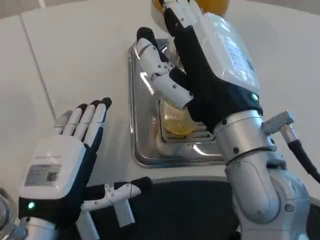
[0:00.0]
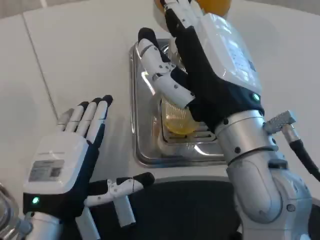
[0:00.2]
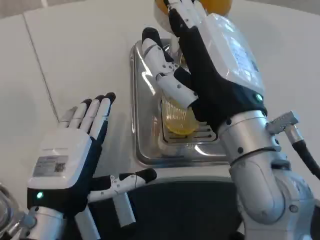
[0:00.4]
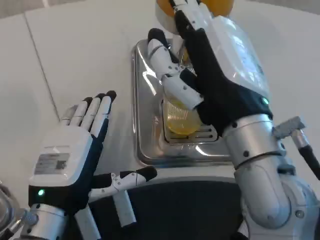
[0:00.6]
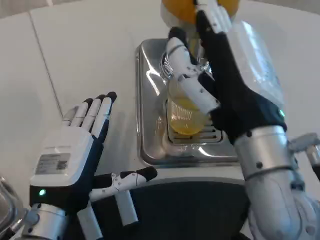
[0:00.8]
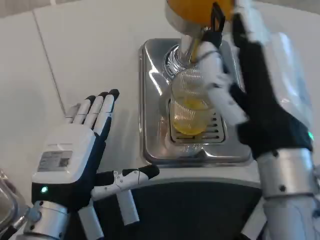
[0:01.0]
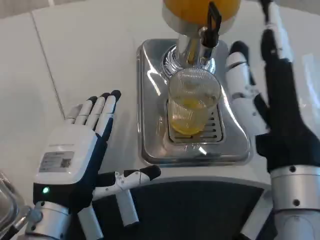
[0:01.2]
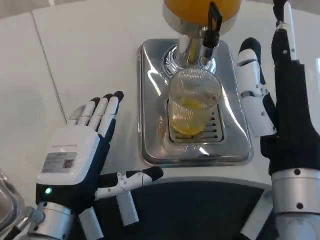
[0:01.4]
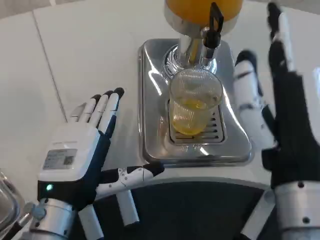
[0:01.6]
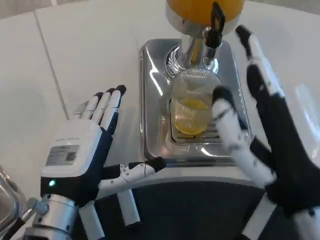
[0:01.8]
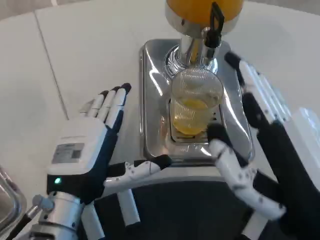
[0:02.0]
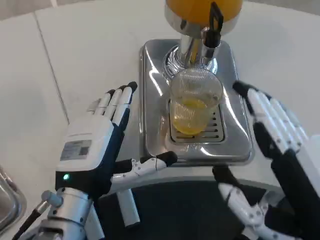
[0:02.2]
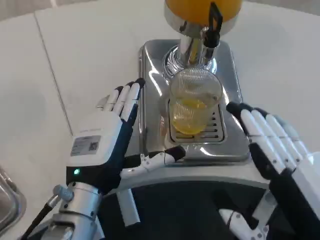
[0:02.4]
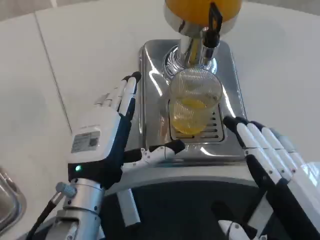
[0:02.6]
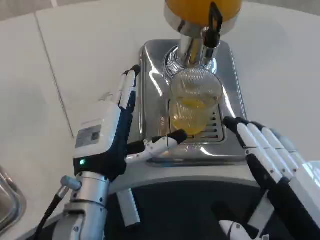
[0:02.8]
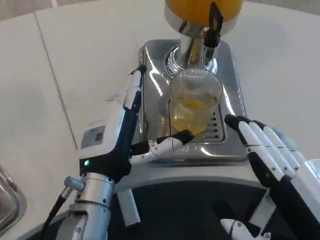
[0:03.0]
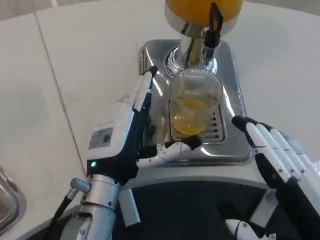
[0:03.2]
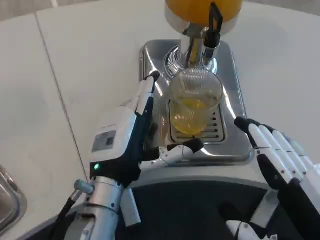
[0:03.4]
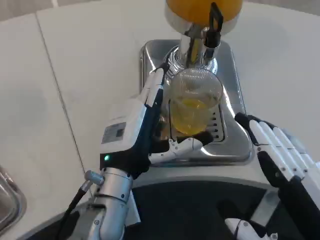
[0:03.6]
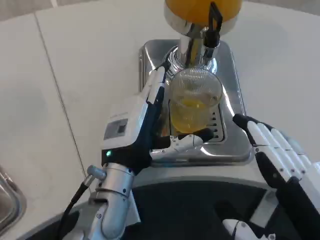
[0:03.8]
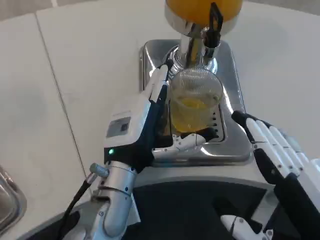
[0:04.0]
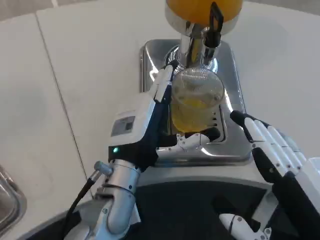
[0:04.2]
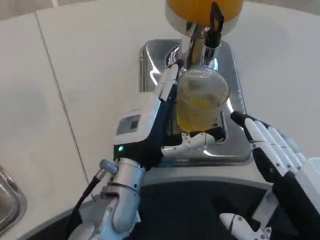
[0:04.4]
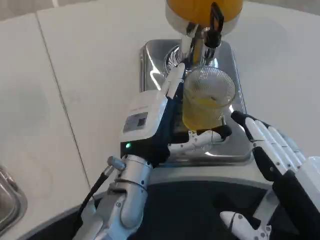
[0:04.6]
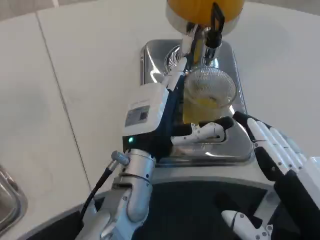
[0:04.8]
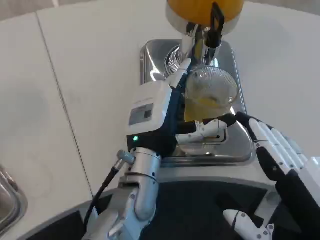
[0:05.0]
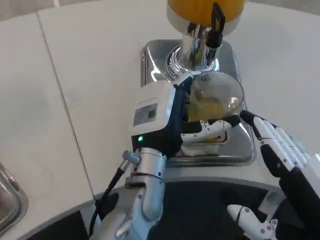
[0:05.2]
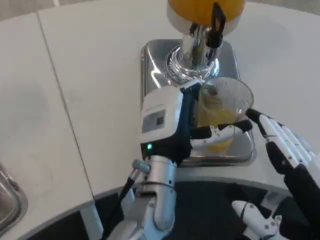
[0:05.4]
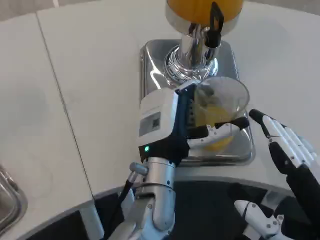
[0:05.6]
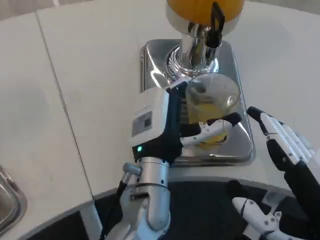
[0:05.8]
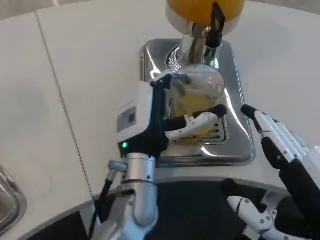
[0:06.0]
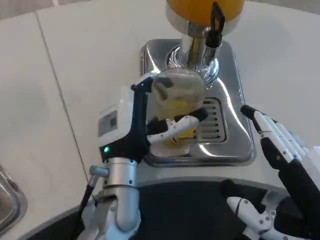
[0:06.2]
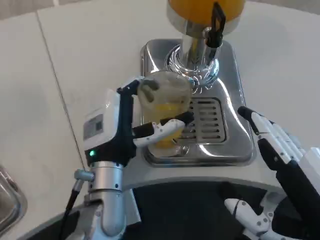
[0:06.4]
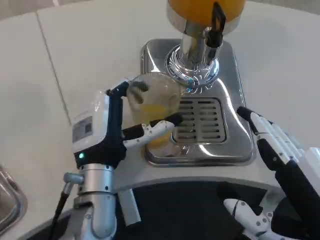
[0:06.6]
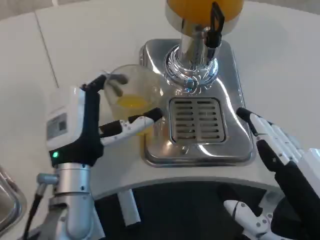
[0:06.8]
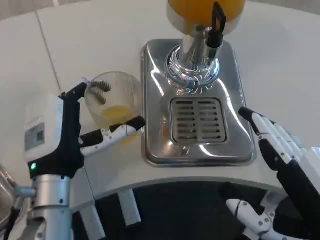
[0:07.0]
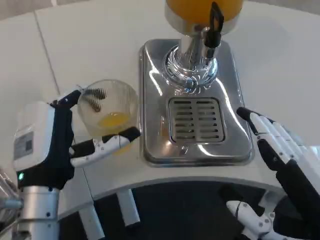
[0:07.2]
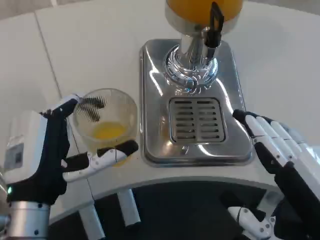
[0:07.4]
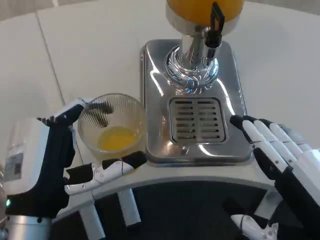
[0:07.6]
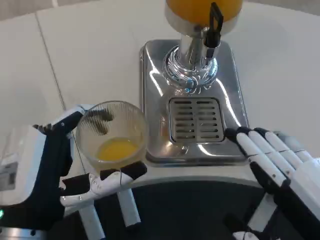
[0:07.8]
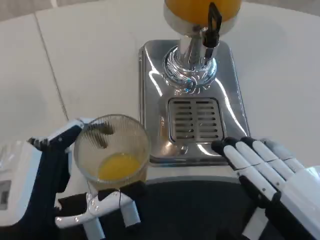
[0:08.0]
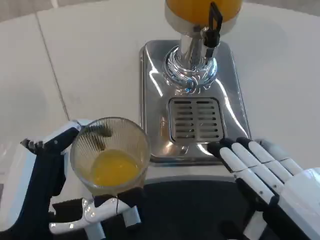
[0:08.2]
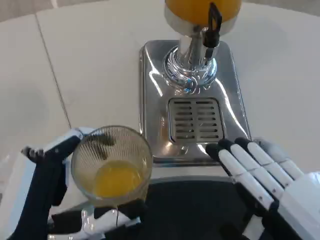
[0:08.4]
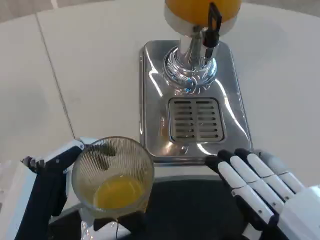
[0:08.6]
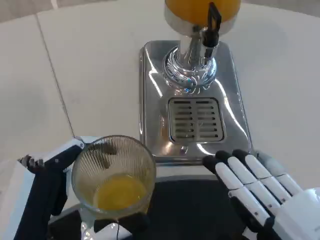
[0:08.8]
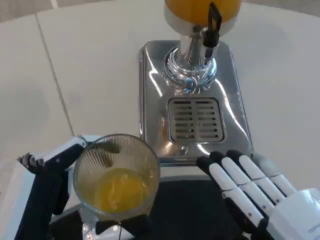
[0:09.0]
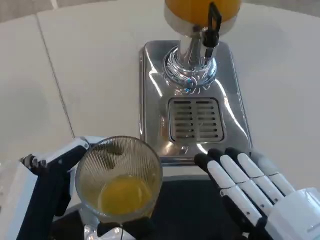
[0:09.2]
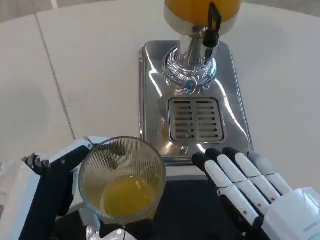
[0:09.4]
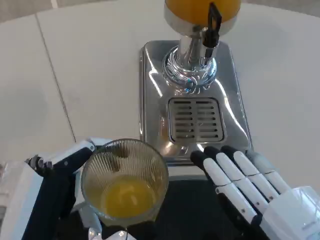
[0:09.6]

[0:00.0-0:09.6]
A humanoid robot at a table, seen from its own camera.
Task of the whole recording: Grasp the cup under the faucet to collect the drink, then remove the cup.
0:00.0 to 0:01.6: The right hand ends up roughly 10 cm from where it was.
0:01.6 to 0:03.2: The left hand is displaced to the right by approximately 5 cm; the right hand moves to the right and backward, some 10 cm.
0:03.2 to 0:04.8: The left hand shifts roughly 5 cm to the right.
0:06.4 to 0:08.0: The left hand moves backward and to the left, approximately 15 cm.

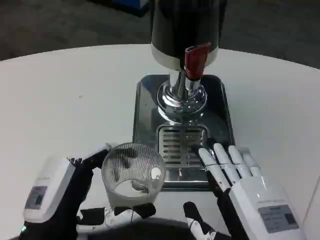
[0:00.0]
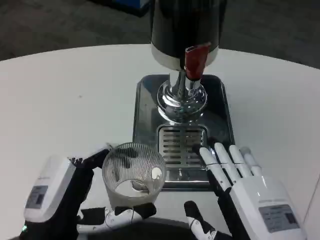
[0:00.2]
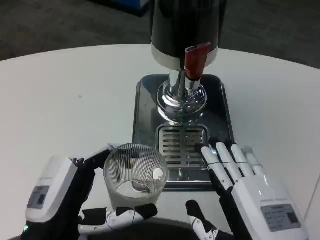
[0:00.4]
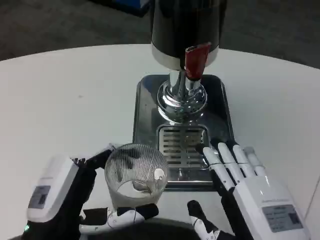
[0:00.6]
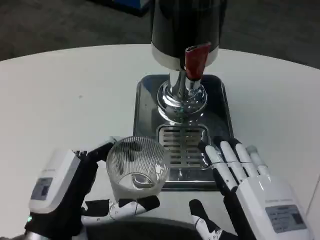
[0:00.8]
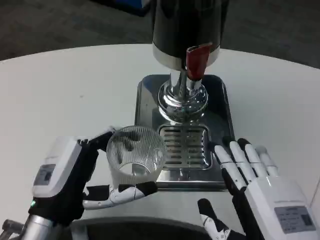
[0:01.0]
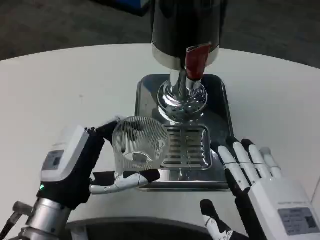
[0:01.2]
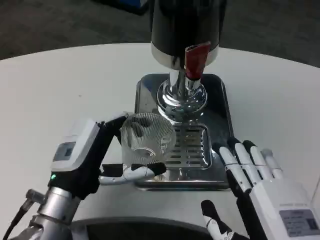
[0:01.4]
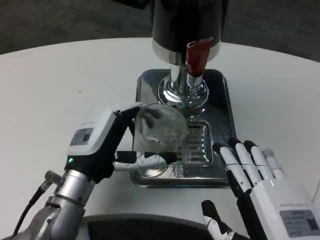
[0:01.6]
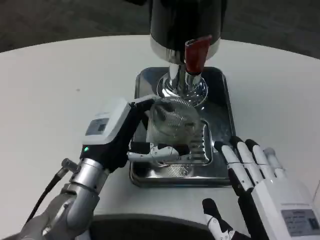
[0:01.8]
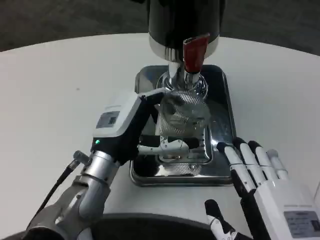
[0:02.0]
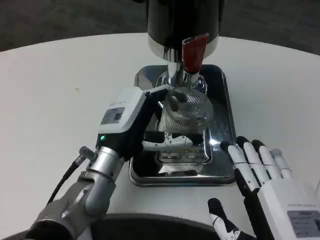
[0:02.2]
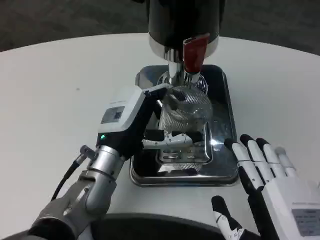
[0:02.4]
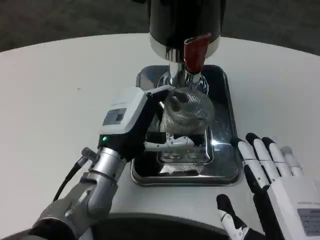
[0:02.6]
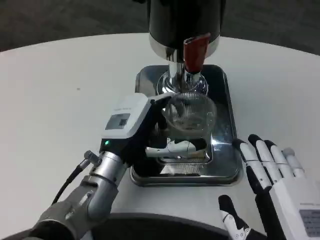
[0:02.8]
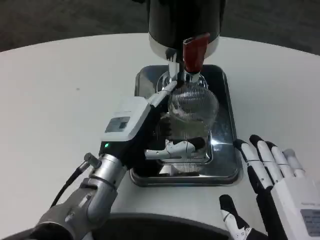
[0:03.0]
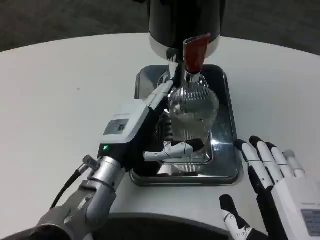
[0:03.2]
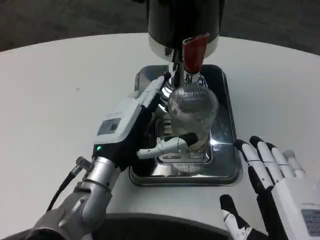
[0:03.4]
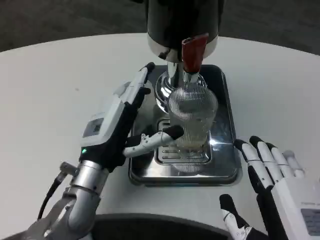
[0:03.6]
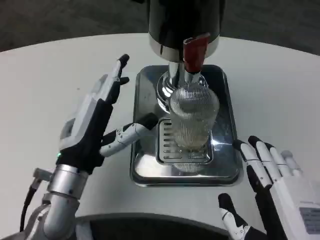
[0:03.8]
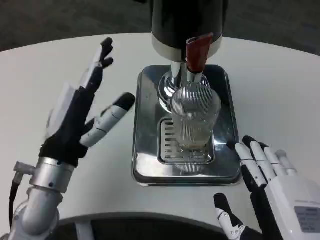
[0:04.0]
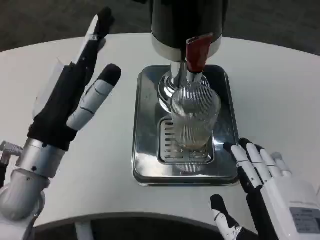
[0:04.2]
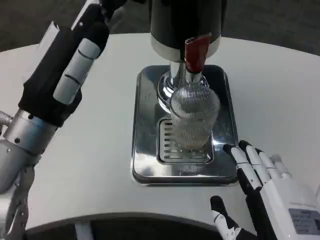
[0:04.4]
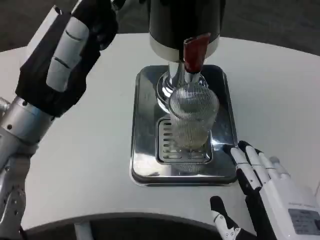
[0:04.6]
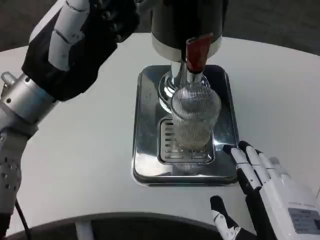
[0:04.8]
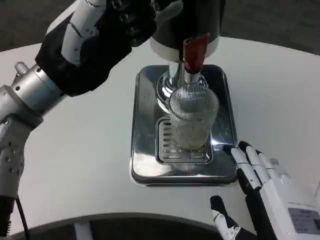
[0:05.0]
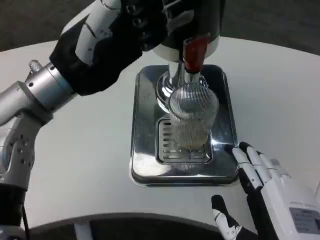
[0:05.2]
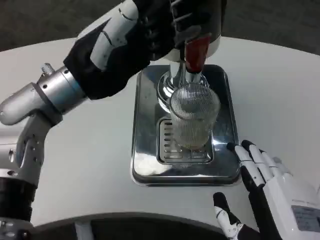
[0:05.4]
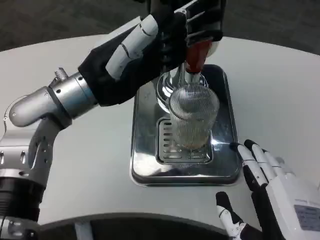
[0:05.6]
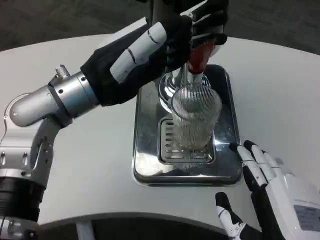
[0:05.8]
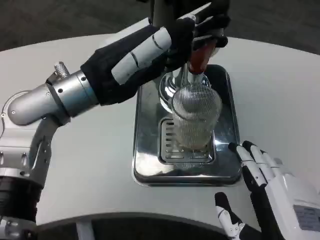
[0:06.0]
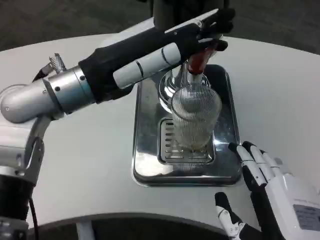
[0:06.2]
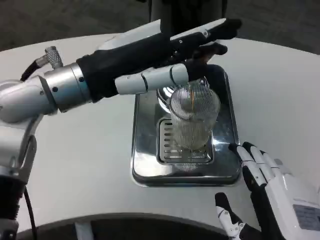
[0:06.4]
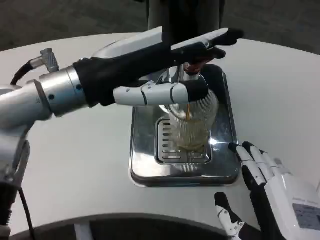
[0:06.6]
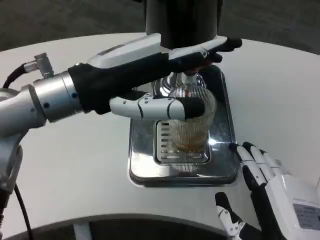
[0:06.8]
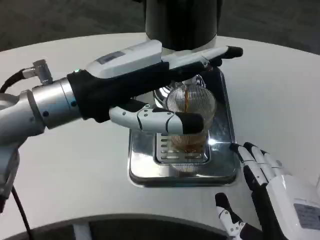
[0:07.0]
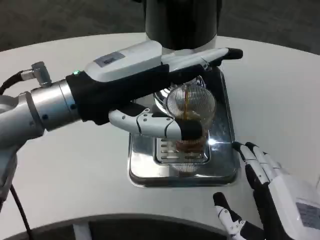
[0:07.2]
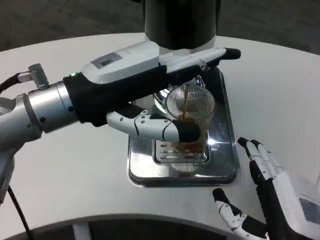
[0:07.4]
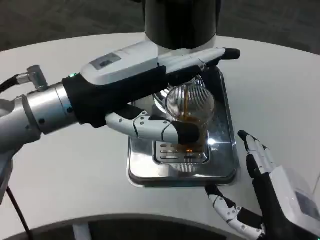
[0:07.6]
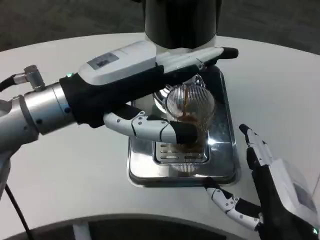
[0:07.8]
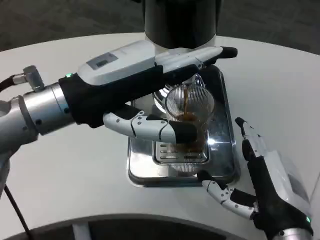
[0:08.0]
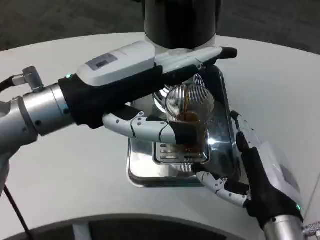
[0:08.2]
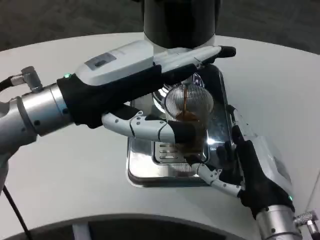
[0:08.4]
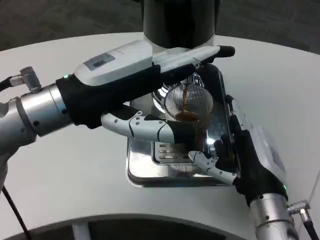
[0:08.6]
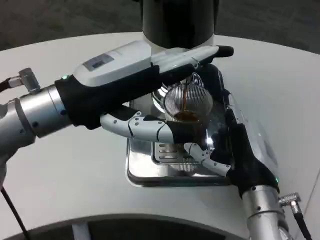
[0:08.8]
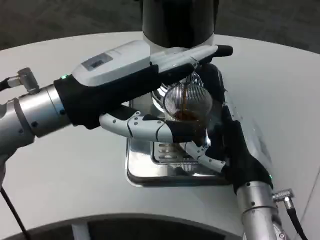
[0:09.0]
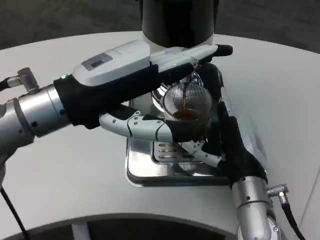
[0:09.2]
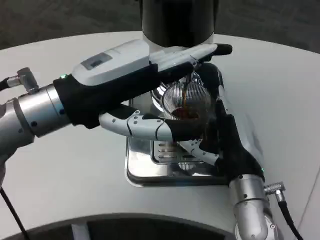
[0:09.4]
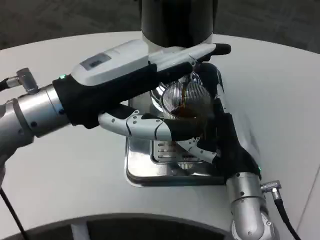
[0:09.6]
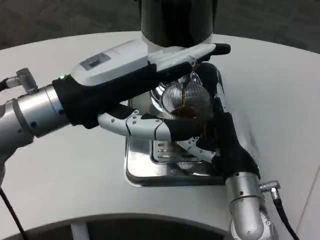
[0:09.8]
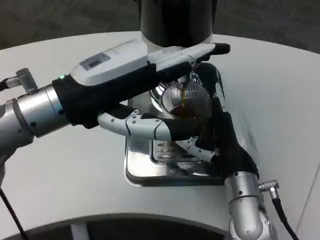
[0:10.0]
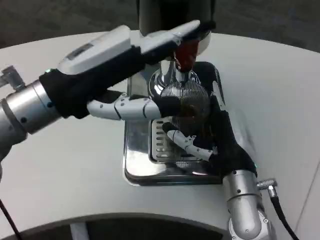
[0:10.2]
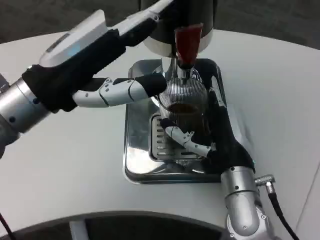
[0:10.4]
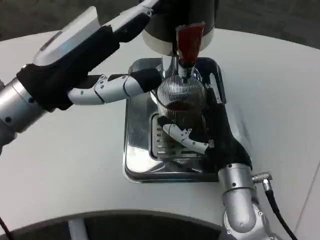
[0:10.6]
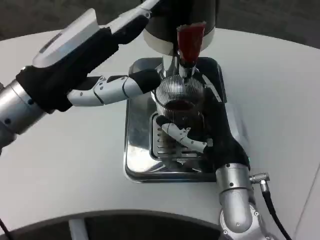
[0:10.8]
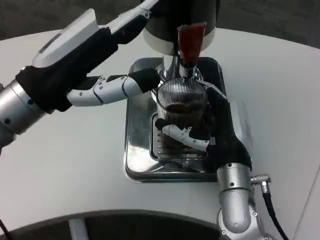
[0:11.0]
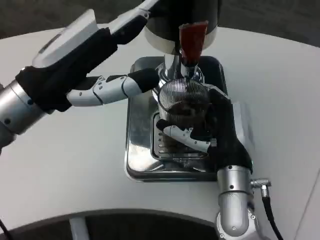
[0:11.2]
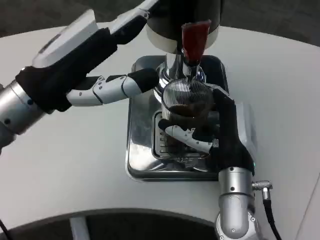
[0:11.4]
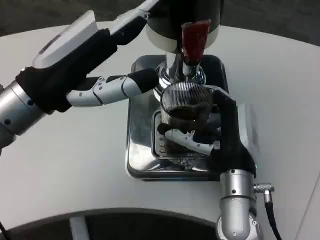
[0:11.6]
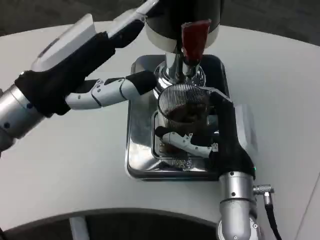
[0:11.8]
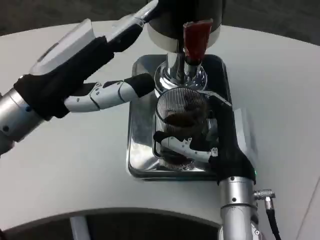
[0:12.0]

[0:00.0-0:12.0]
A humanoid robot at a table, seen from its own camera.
Task of the whole recording: Grasp the cup under the faucet to collect the drink, then remove the cup.
0:00.0 to 0:01.6: The left hand shifts roughly 10 cm forward.
0:01.6 to 0:03.0: The left hand changes place by about 5 cm.
0:03.0 to 0:04.4: The left hand shifts some 15 cm upward and to the left.
0:04.4 to 0:06.0: The left hand moves upward, approximately 5 cm.
0:07.6 to 0:09.0: The right hand travels forward by approximately 10 cm.

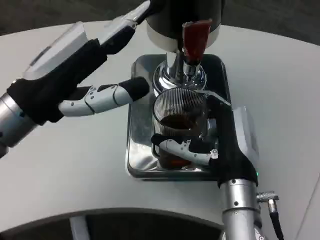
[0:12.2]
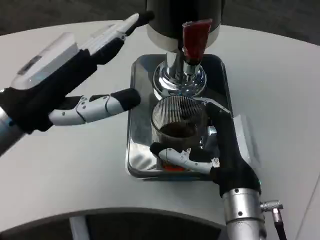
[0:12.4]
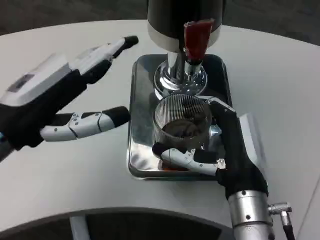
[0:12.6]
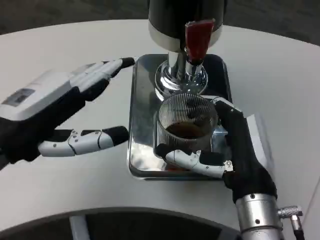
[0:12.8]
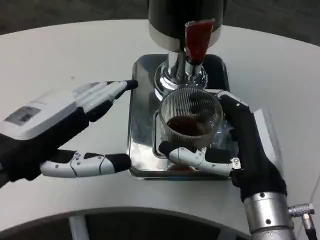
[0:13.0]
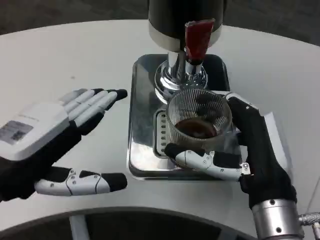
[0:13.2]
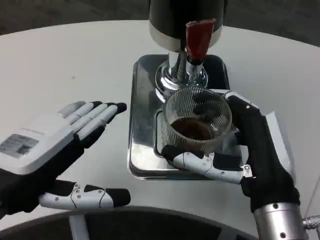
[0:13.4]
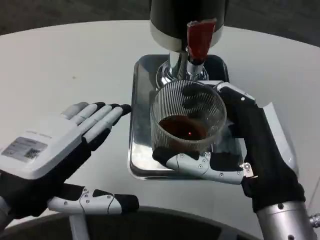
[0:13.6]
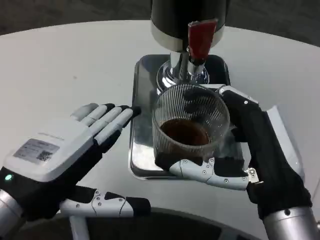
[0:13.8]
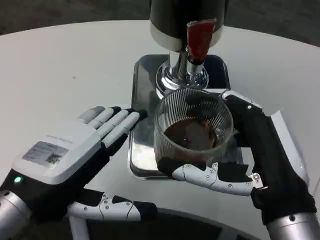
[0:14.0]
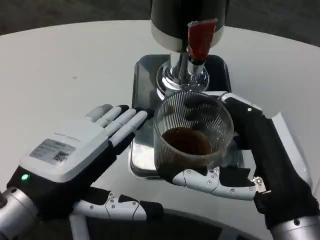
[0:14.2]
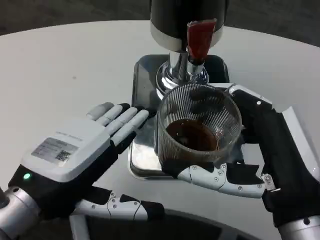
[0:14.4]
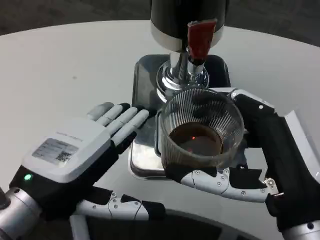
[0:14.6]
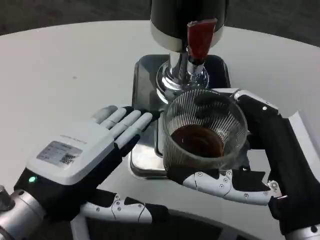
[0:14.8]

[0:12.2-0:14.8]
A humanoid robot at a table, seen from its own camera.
Task of the whole recording: Grasp the cup under the faucet to collect the drink, then remove the cup.
0:12.2 to 0:13.4: The two hands go approximately 10 cm backward.
0:13.4 to 0:14.8: The right hand moves roughly 5 cm.
